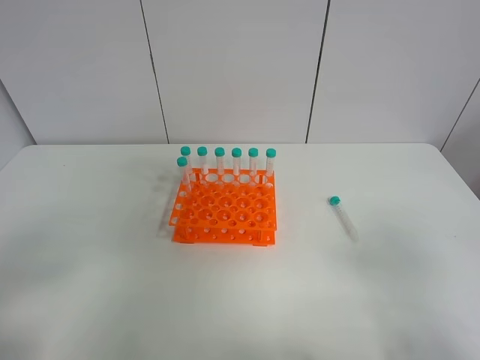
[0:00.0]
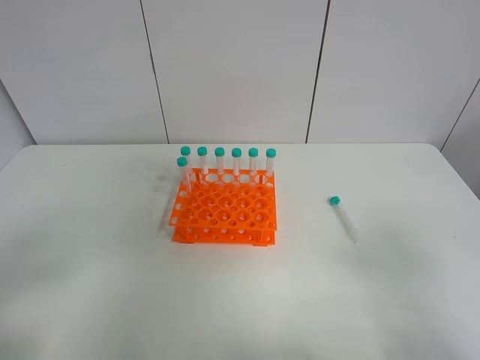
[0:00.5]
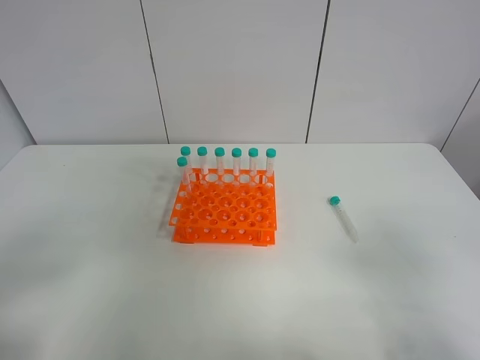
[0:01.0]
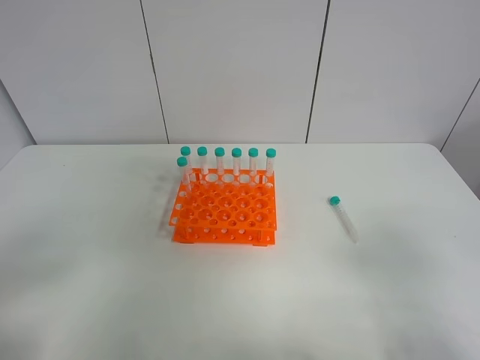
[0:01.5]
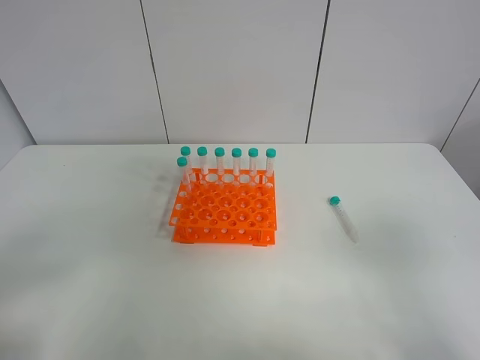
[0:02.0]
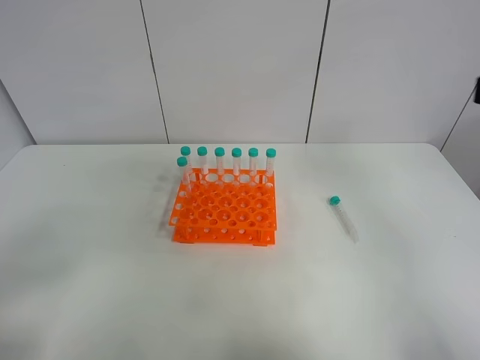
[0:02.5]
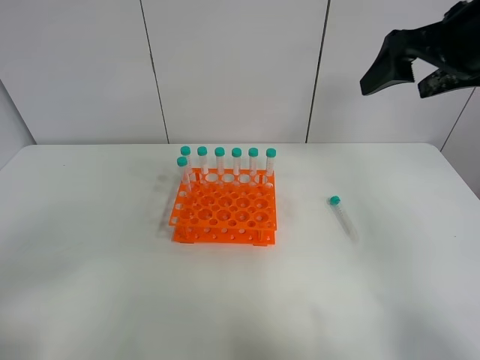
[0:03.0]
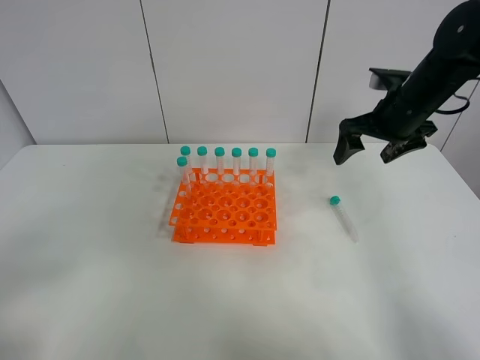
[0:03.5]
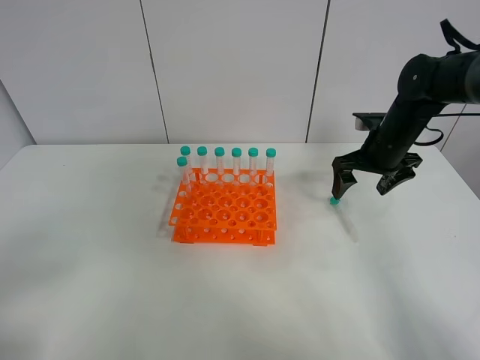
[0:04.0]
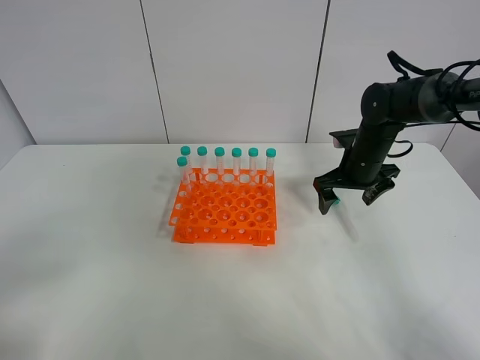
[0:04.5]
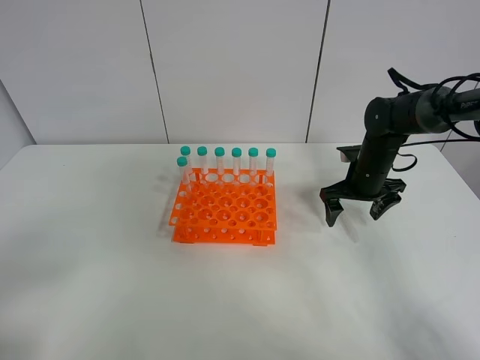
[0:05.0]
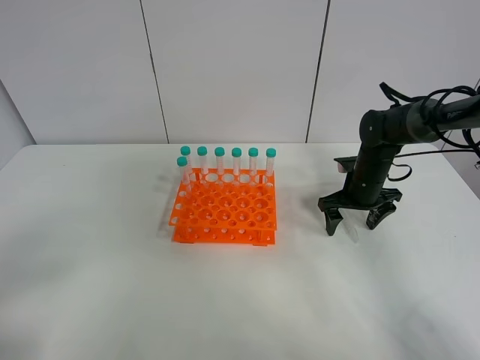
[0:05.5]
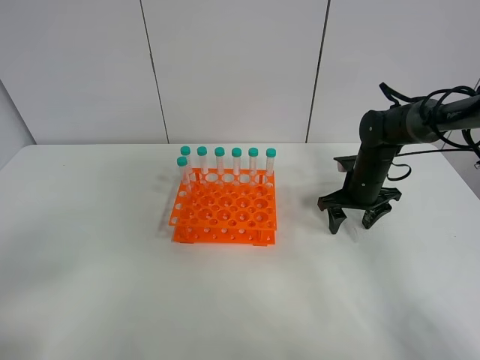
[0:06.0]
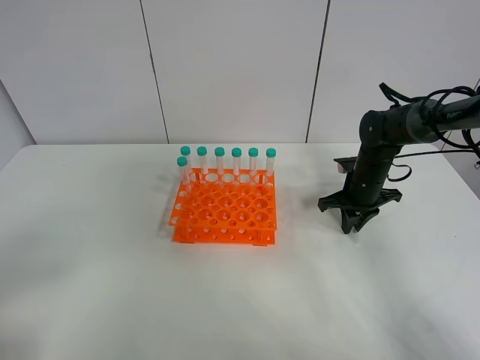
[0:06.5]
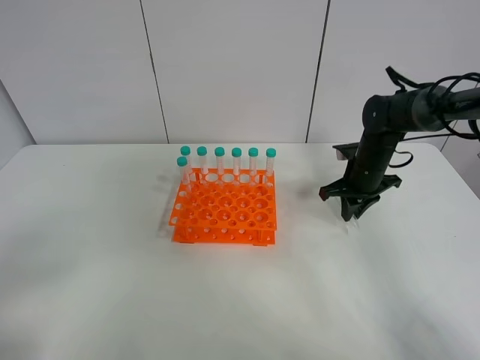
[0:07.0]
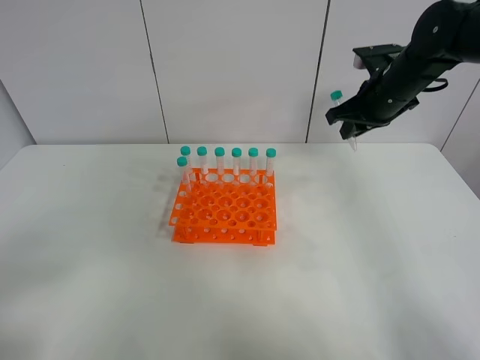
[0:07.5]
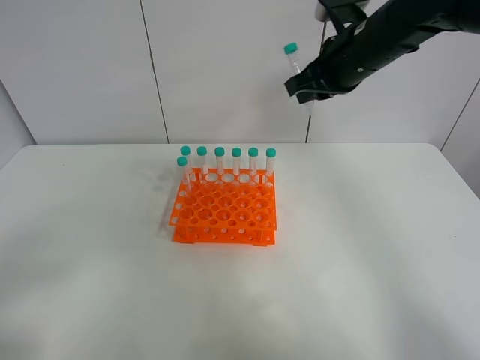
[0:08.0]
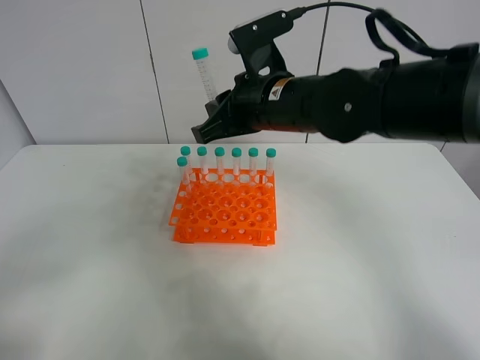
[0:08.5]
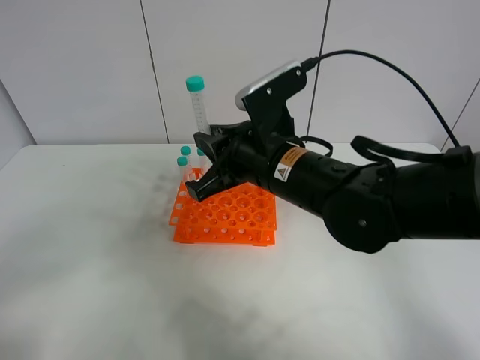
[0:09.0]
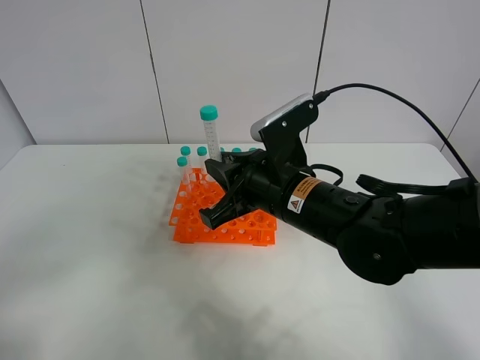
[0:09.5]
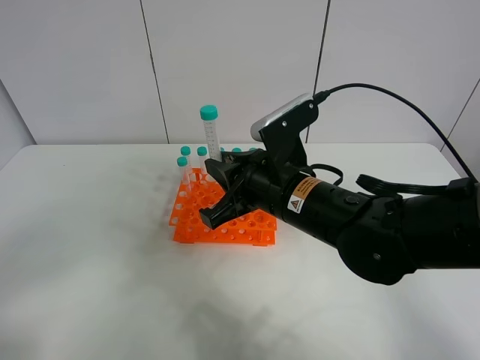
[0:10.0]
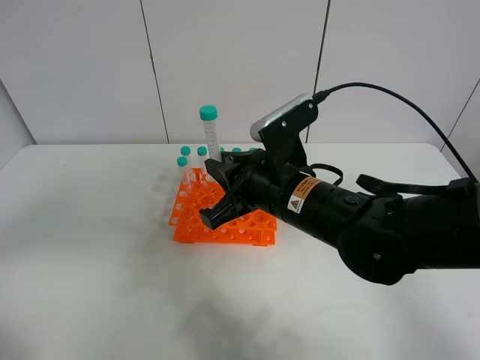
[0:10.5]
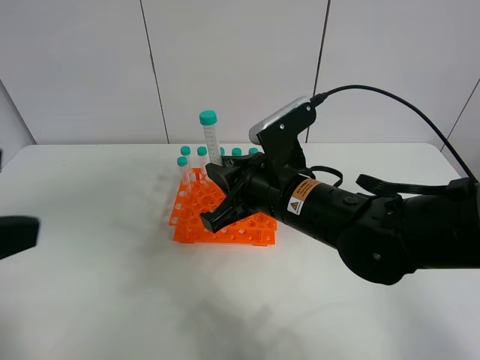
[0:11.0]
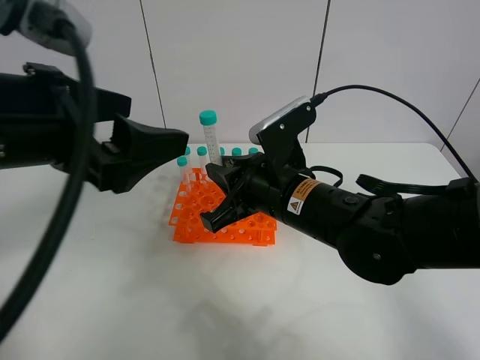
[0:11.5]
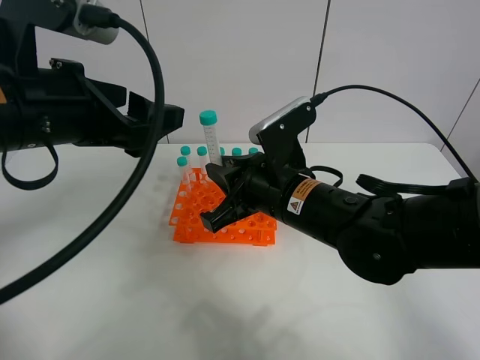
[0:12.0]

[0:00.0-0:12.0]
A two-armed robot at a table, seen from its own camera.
Task of the whole recording: Put the test tube on the table back onto the test tube rack.
Step, 0:00.0 to 0:06.0: Pick up the test tube with the right gripper.
0:02.0 to 0:04.0: The right gripper heads forward, covering some 40 cm.
0:04.0 to 0:06.0: The right gripper moves downward, about 10 cm, and closes up.
0:06.0 to 0:08.0: The right gripper moves upward and to the left, some 25 cm, and closes.
0:08.0 to 0:10.0: The right gripper heads backward, downward and to the left, covering some 20 cm.
0:10.0 to 0:12.0: The left gripper goes roughly 25 cm forward and to the right.

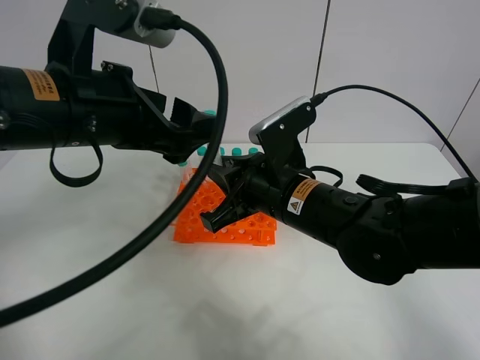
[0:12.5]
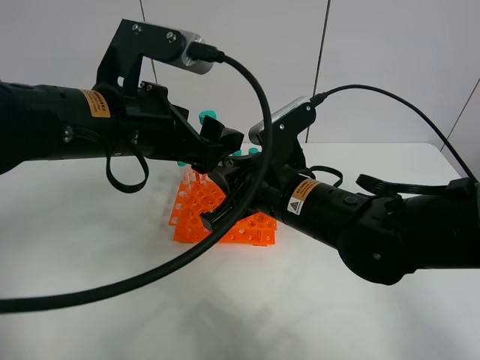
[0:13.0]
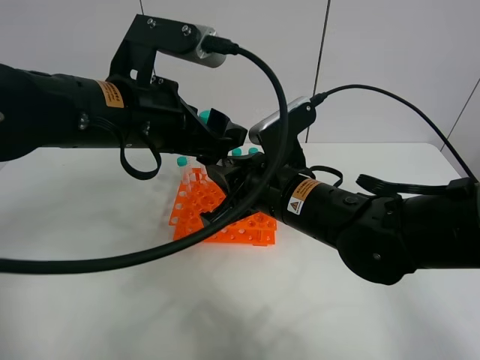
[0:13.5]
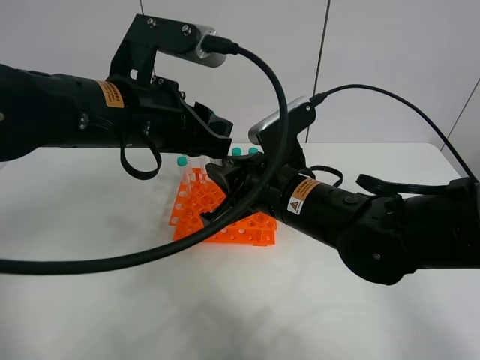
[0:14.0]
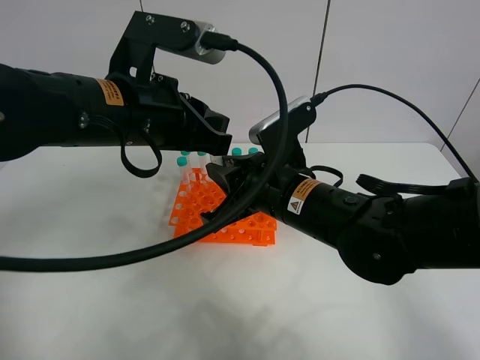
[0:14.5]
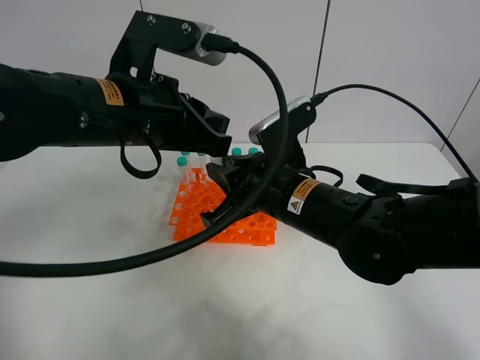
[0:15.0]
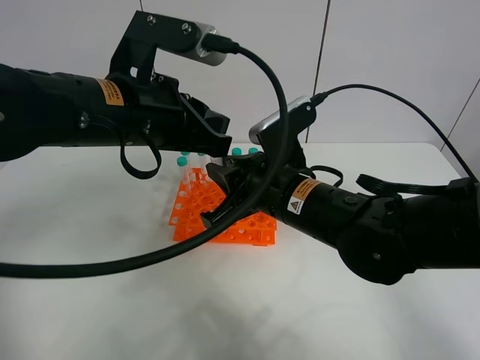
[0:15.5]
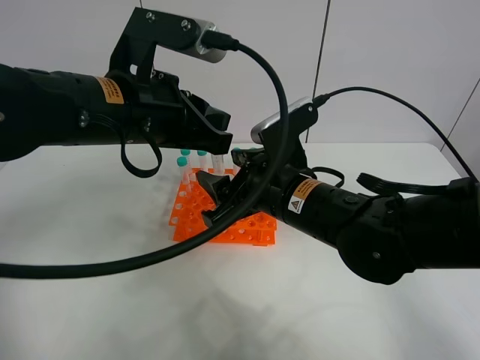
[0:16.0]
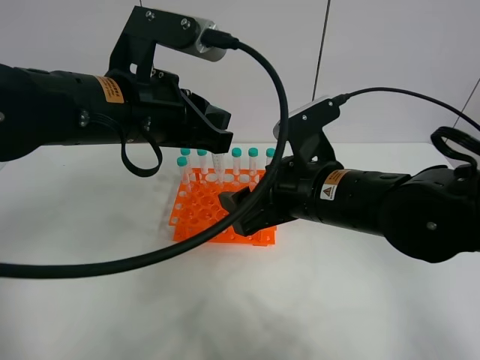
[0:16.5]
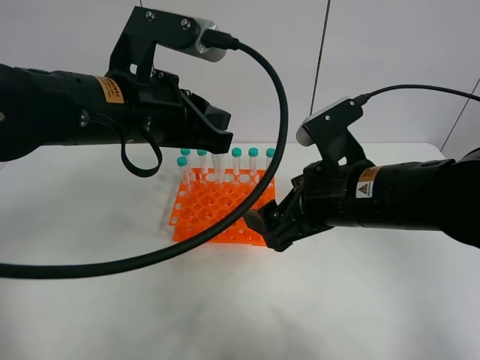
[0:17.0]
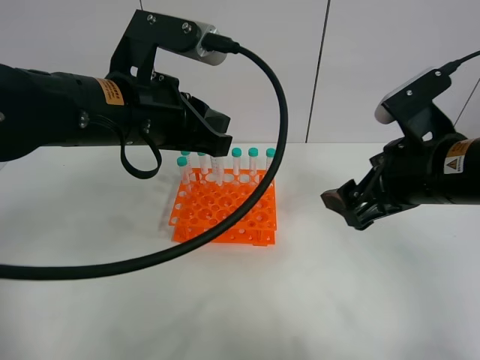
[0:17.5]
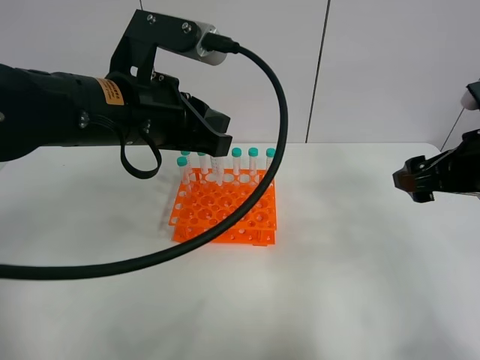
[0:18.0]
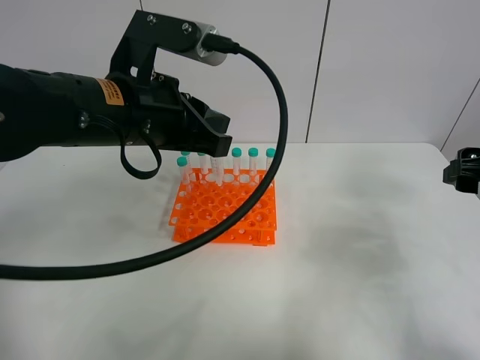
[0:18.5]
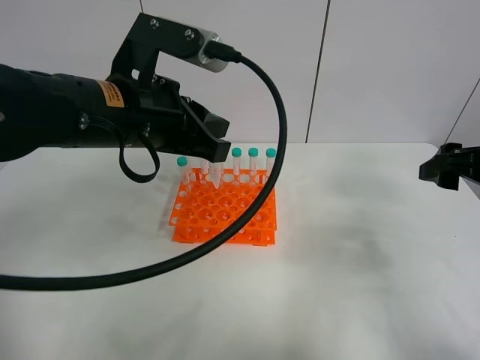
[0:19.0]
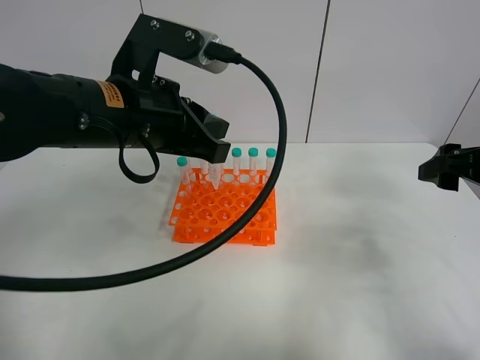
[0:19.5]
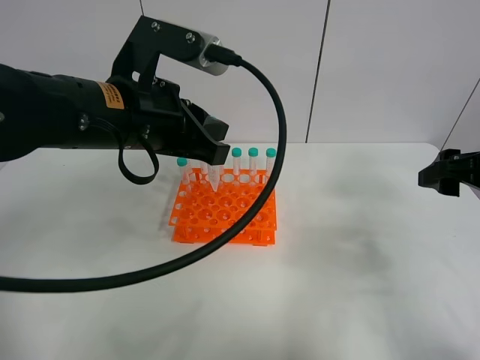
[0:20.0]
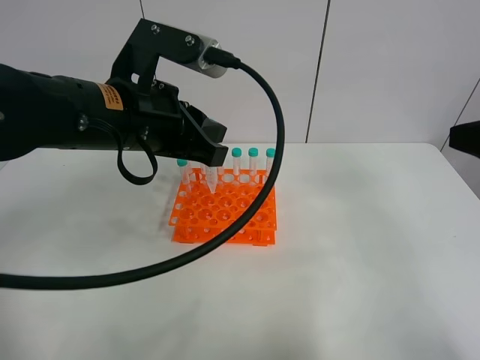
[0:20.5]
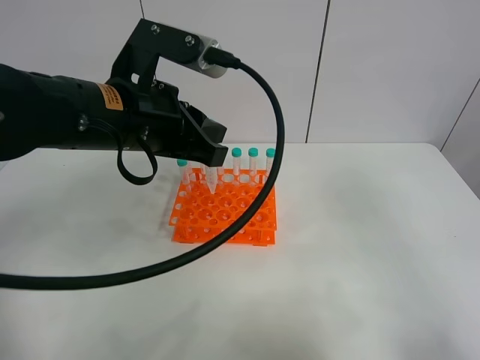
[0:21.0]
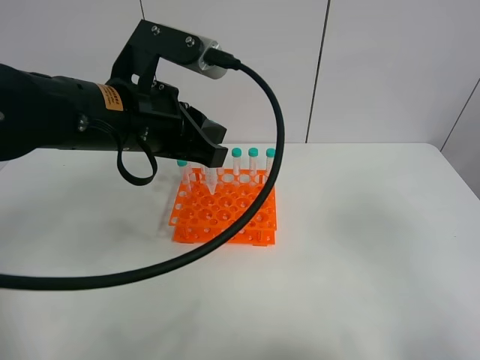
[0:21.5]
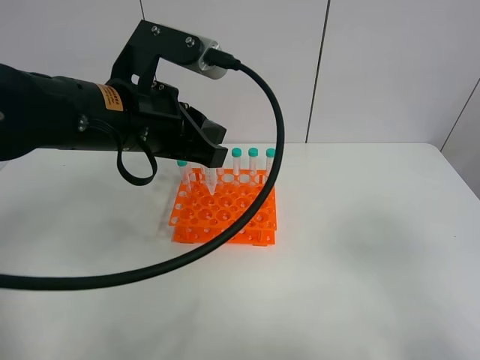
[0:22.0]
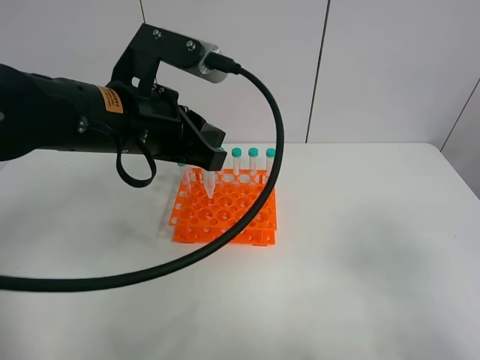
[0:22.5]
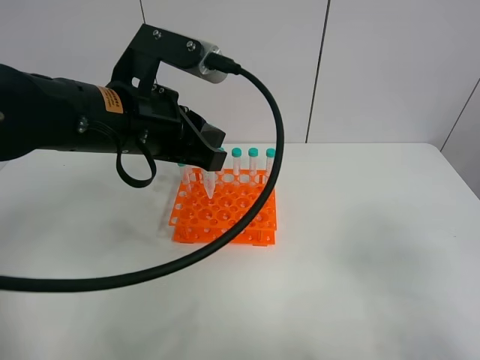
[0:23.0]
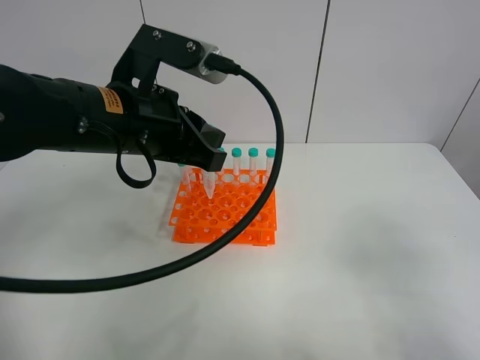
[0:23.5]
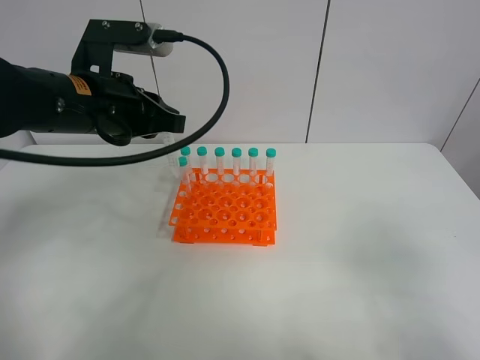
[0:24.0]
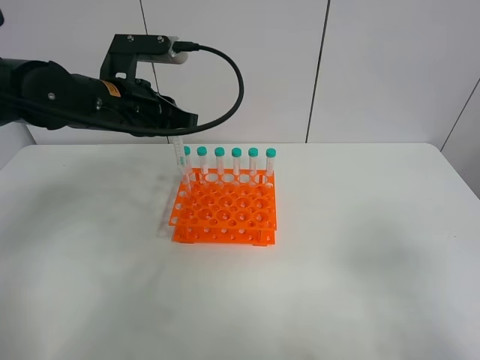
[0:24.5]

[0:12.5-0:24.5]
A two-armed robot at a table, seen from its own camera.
Task of the whole recording: Put the test tube on the table back onto the test tube rack.
Step, 0:12.5 to 0:15.5: Move the test tube from the right gripper to the left gripper.
0:12.5 to 0:14.5: The left gripper closes up.
0:14.5 to 0:16.5: The right gripper opens its fingers.
0:16.5 to 0:18.5: The right gripper heads to the right, covering roughly 25 cm.
0:18.5 to 0:20.5: The right gripper is displaced upward, backward and to the left by roughly 10 cm.
0:20.5 to 0:22.5: The right gripper travels backward and downward by approximately 15 cm.
0:22.5 to 0:24.5: The left gripper moves forward, about 10 cm.

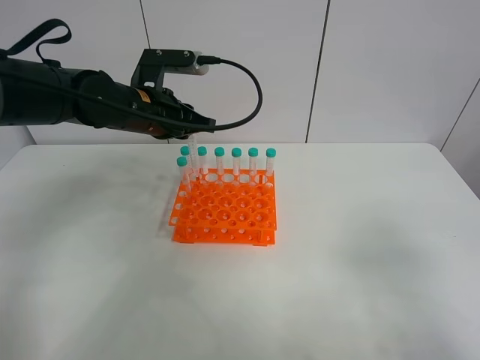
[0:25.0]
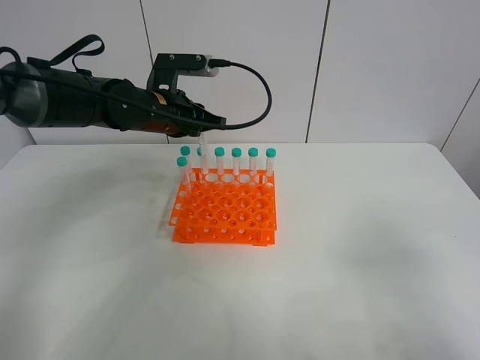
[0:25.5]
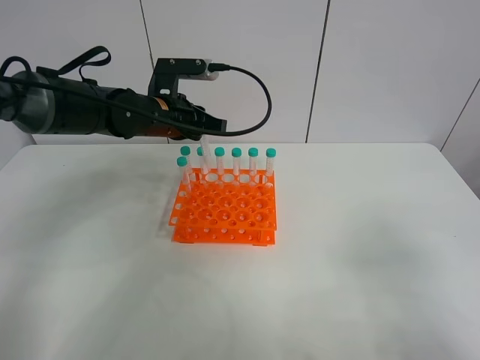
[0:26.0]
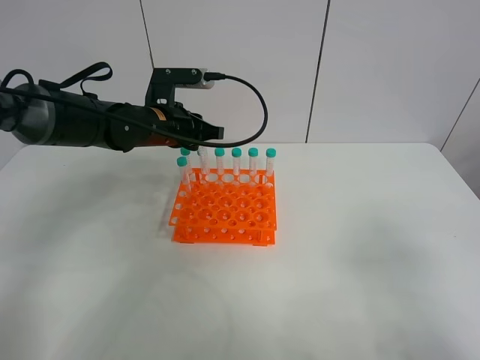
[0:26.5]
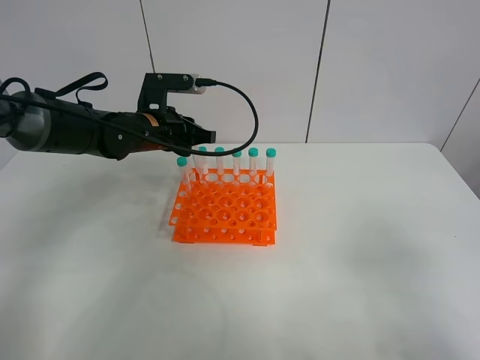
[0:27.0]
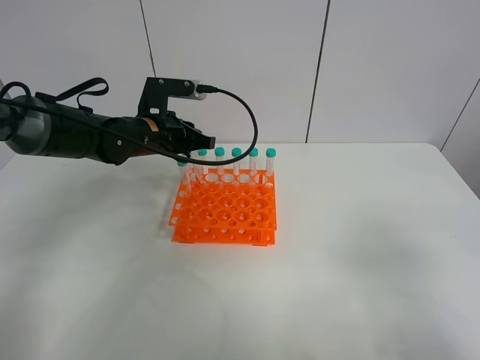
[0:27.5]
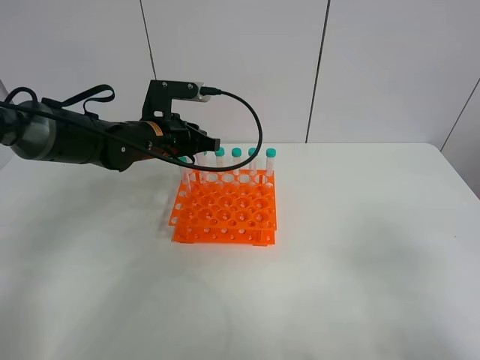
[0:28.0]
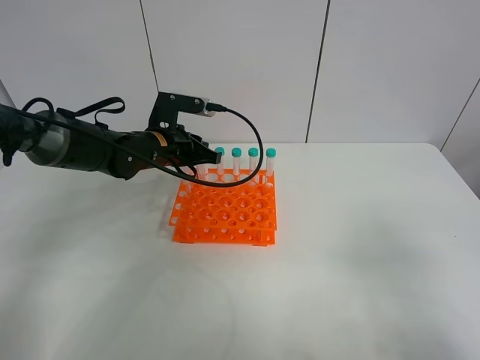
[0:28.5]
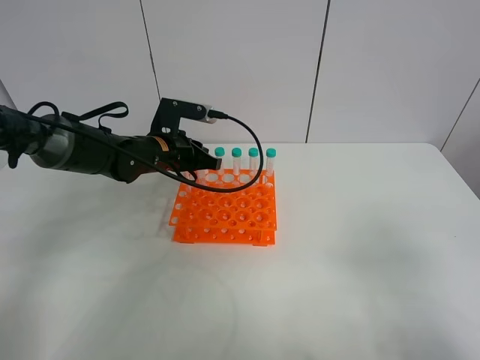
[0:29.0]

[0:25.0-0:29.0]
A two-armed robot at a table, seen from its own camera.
Task of the whole recording: Put the test tube on the table back onto the test tube rack.
0:25.0 to 0:27.0: The left gripper shifts by some 5 cm.
0:27.0 to 0:29.0: The grippers move only a little.
